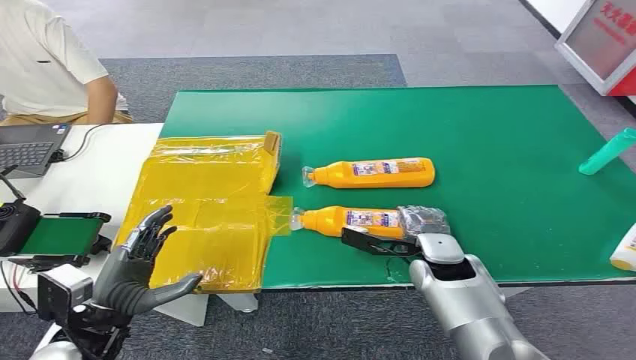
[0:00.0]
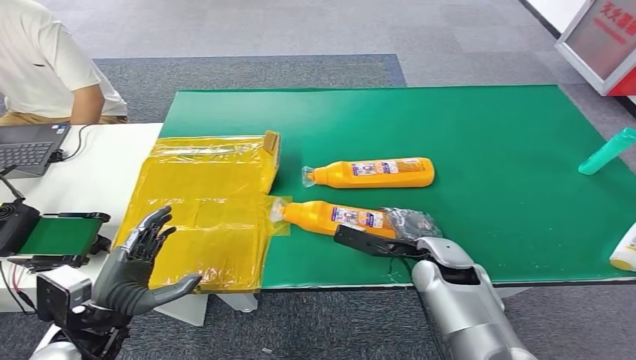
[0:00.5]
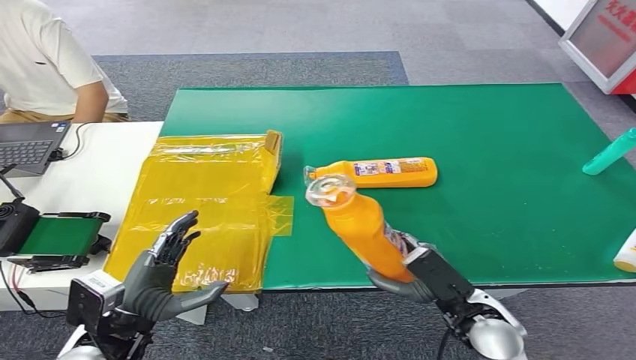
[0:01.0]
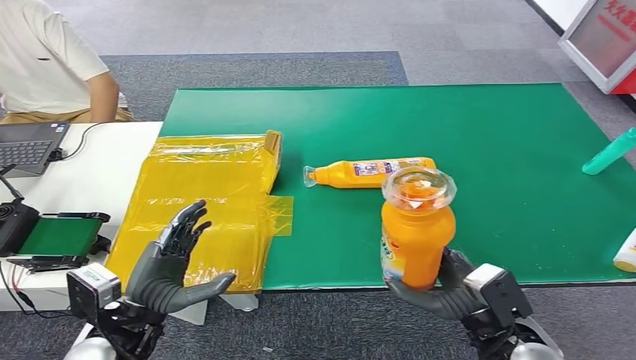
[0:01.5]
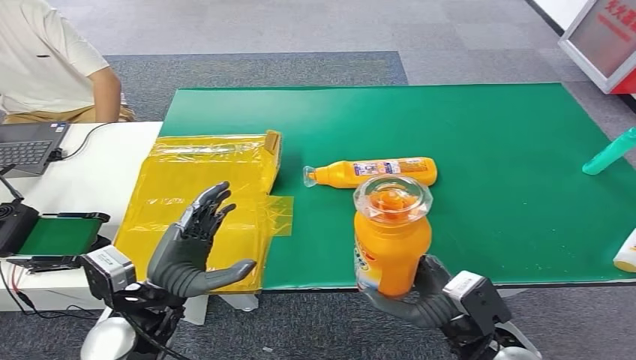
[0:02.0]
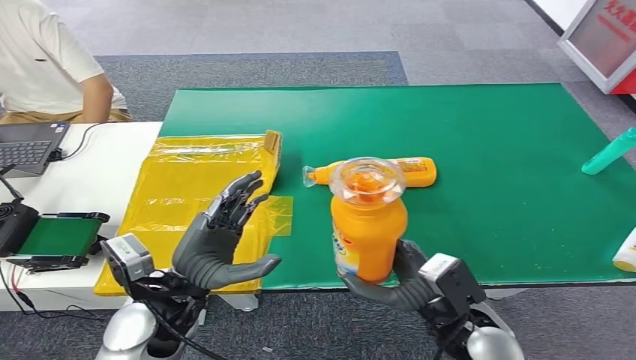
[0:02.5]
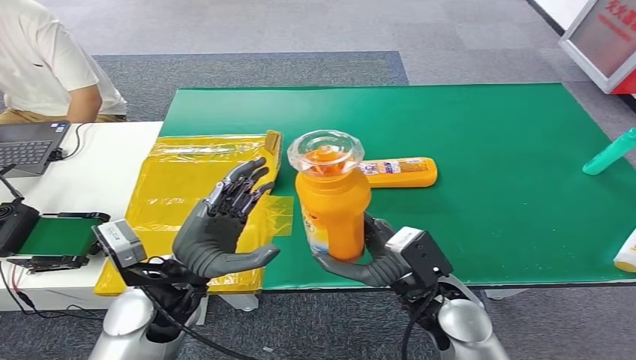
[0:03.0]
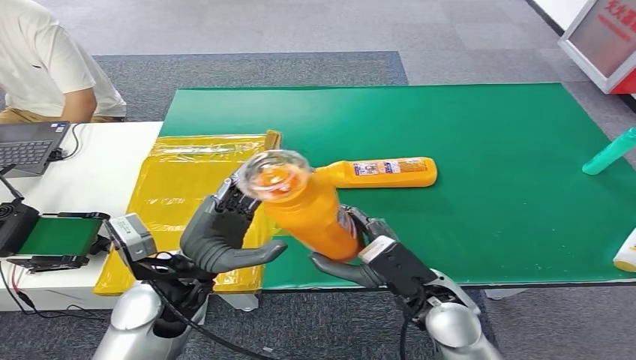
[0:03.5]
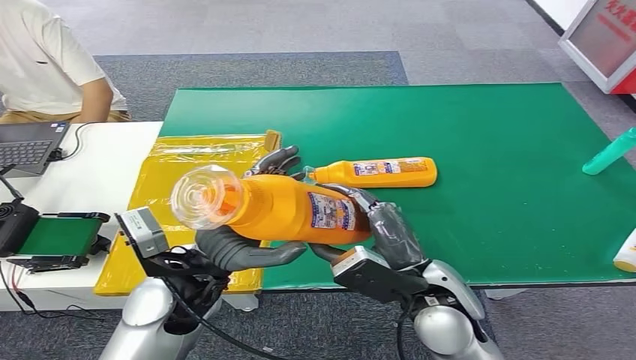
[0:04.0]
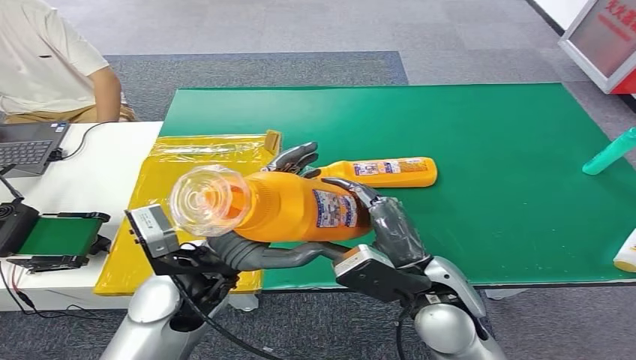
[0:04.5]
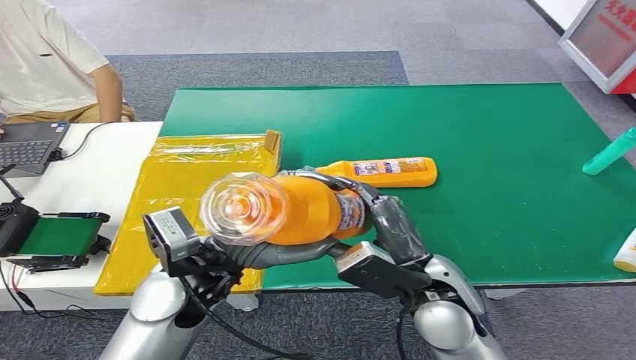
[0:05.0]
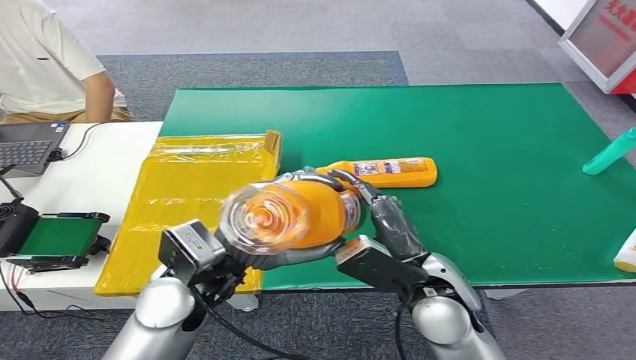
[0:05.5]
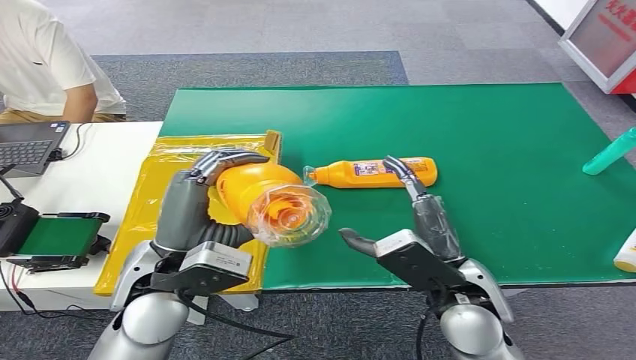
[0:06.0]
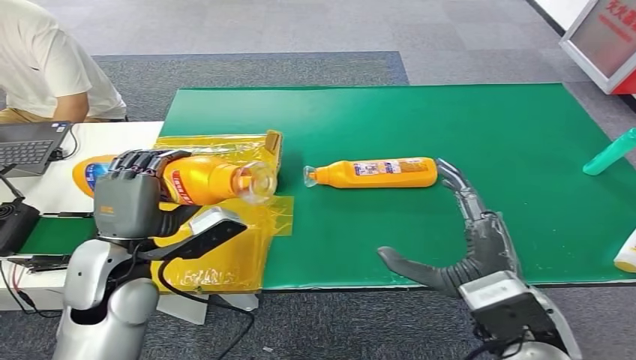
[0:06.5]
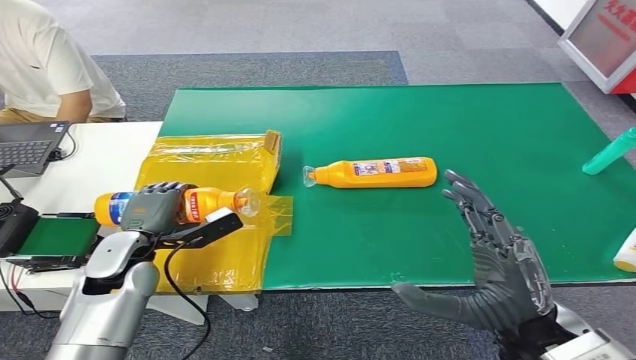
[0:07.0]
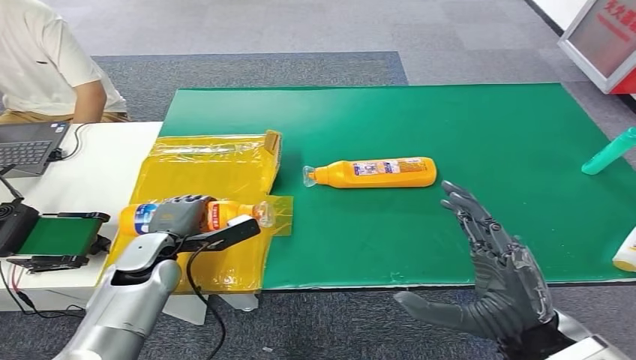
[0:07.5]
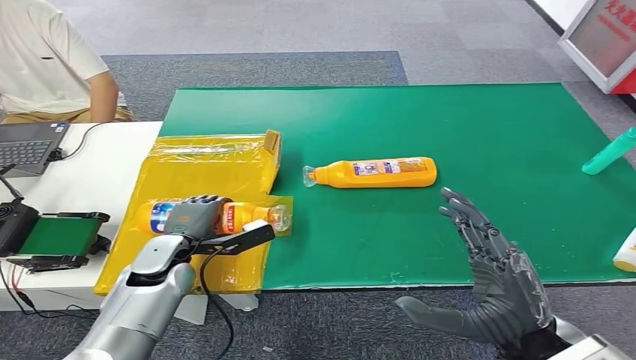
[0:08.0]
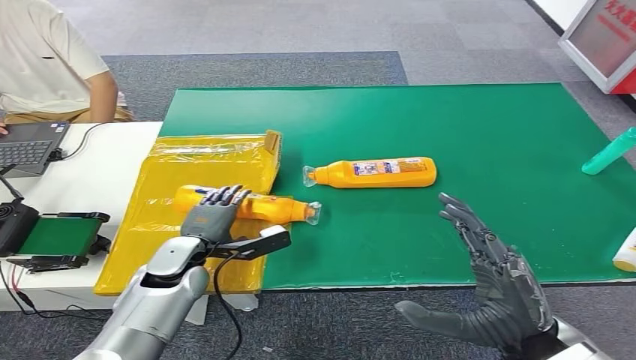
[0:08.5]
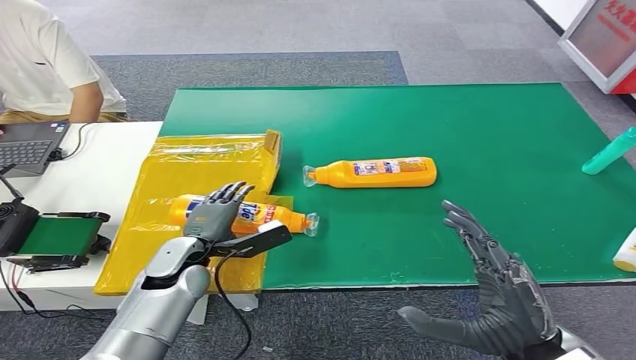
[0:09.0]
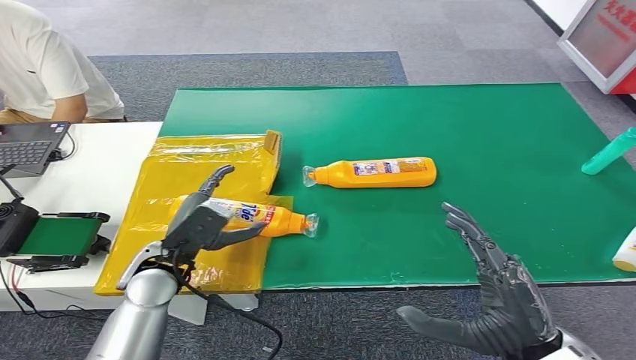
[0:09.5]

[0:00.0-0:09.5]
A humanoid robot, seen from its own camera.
Step, 0:00.0 to 0:01.5: Pick up the bottle from the table.
Step, 0:04.5 to 0:09.5: Turn the bottle to the front side.
0:02.0 to 0:04.0: The left hand moves to the right and upward, about 10 cm. The right hand shifts approximately 10 cm to the left, upward and forward.
0:04.0 to 0:05.5: There are only small adjustments of the hands.
0:07.5 to 0:09.5: The left hand shifts by roughly 5 cm.

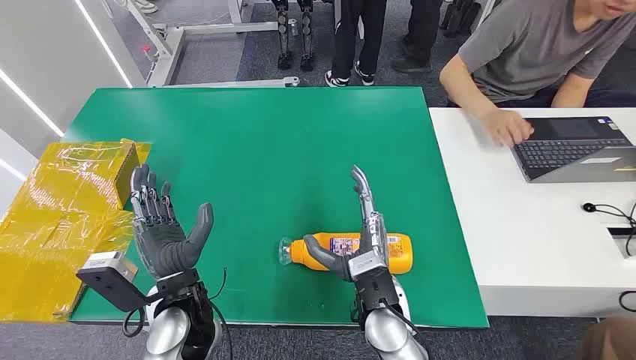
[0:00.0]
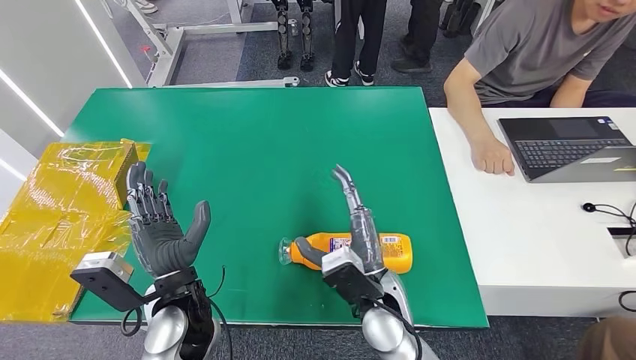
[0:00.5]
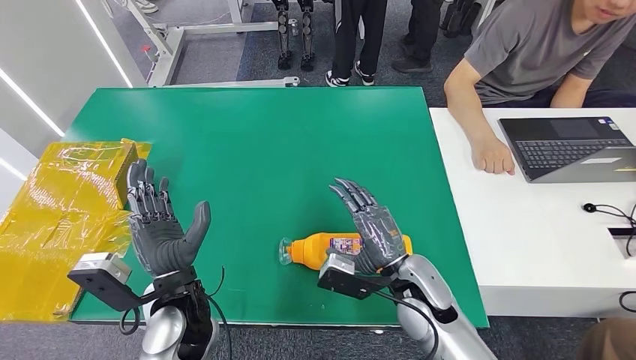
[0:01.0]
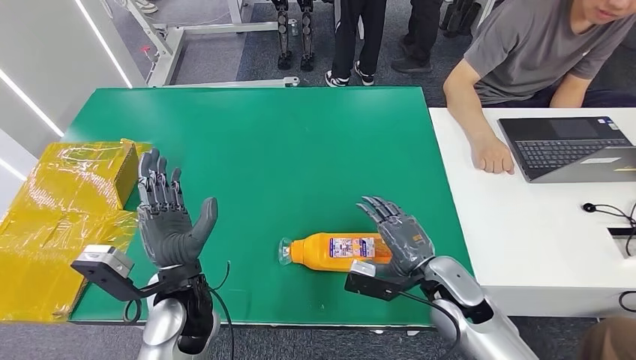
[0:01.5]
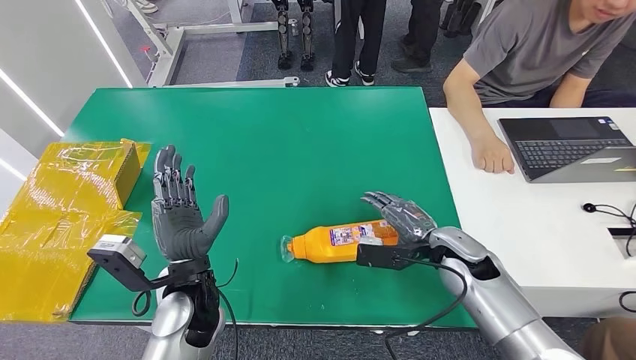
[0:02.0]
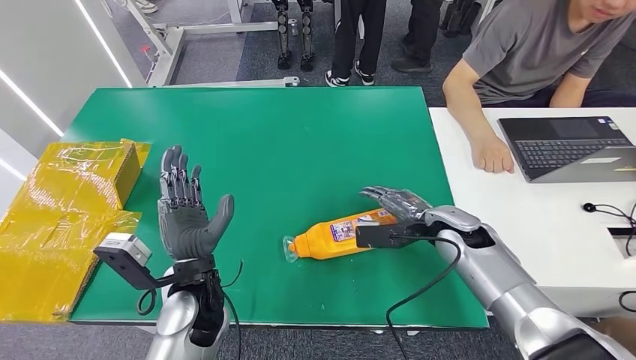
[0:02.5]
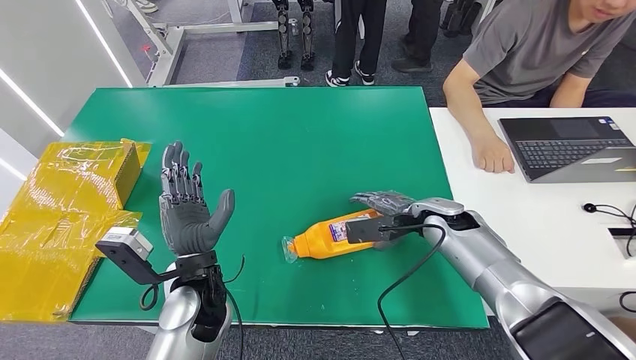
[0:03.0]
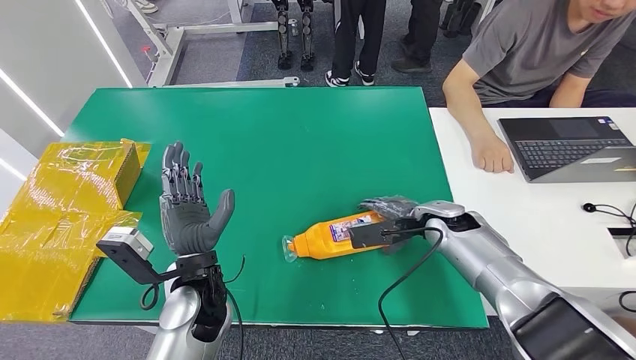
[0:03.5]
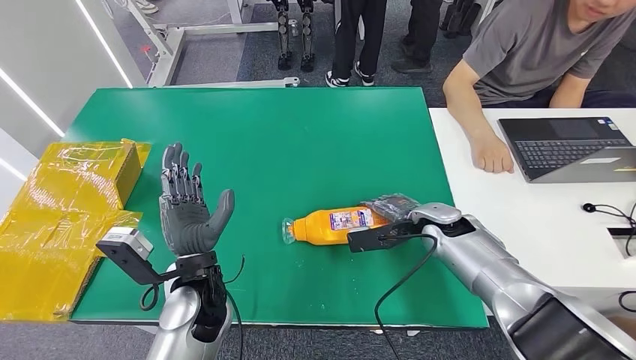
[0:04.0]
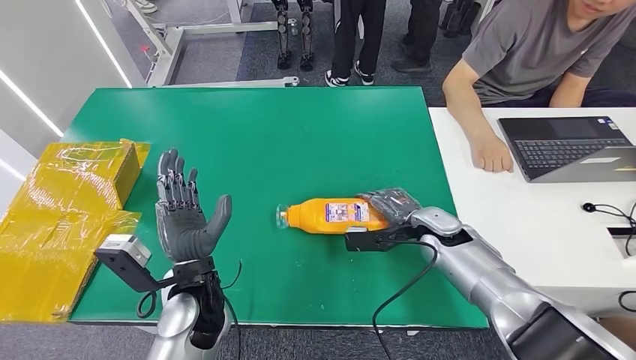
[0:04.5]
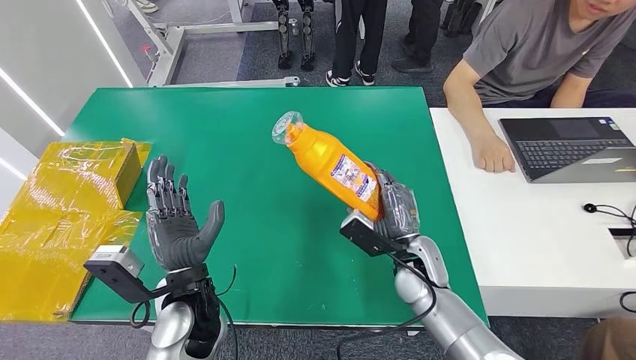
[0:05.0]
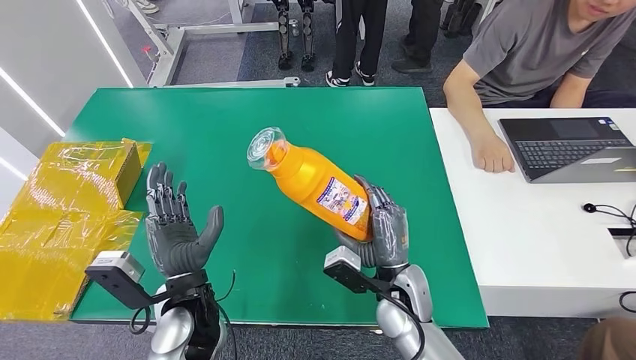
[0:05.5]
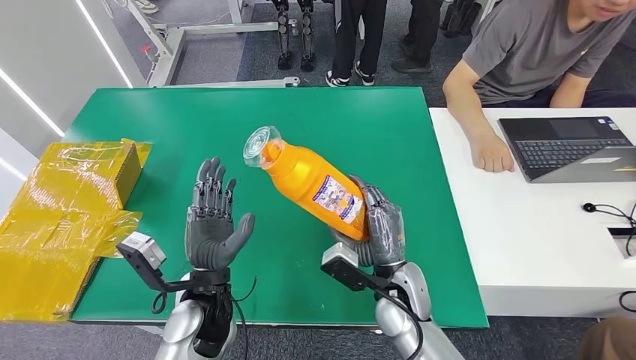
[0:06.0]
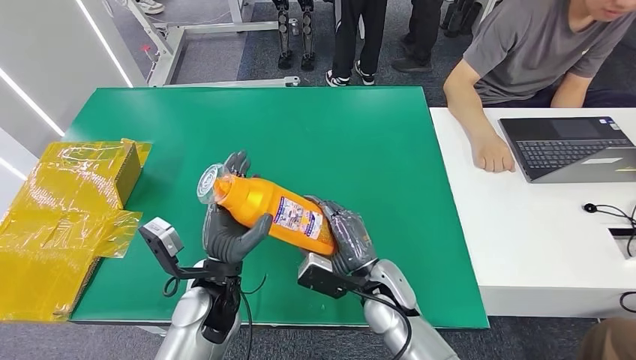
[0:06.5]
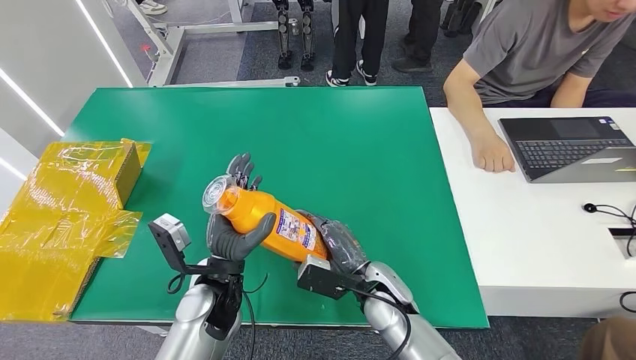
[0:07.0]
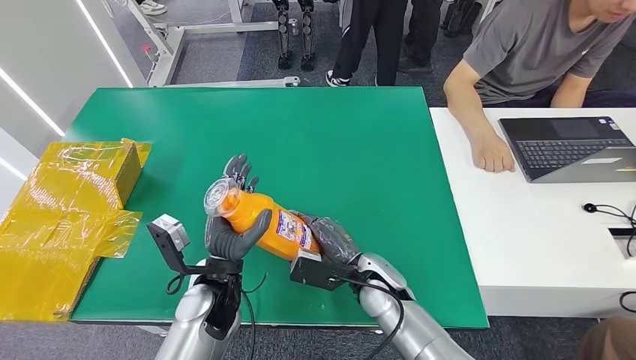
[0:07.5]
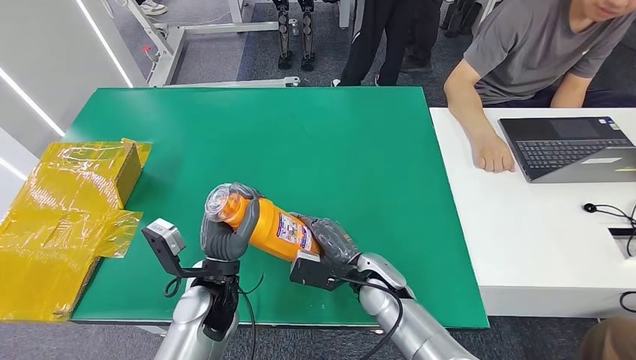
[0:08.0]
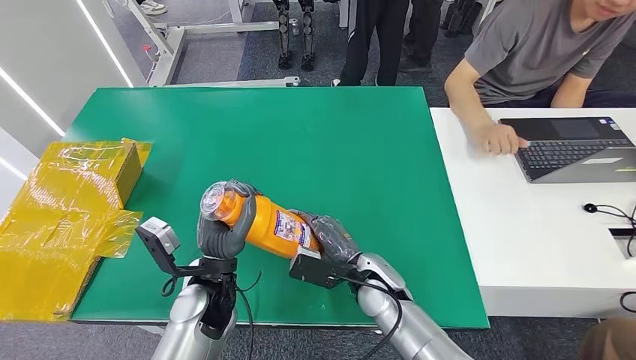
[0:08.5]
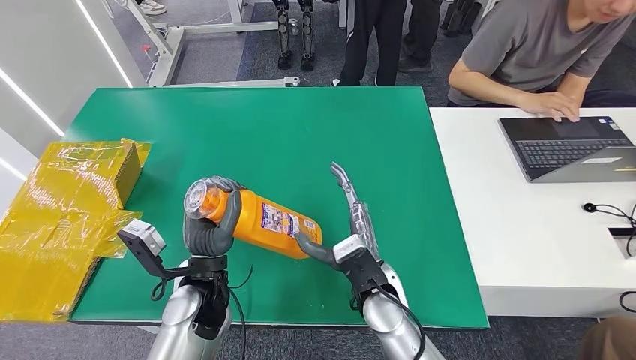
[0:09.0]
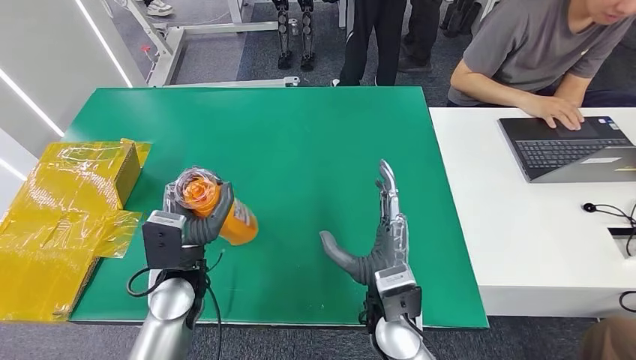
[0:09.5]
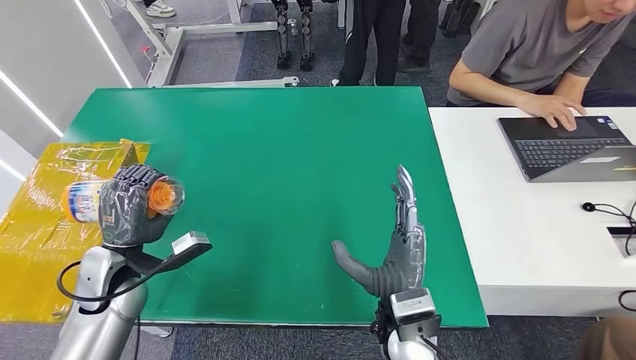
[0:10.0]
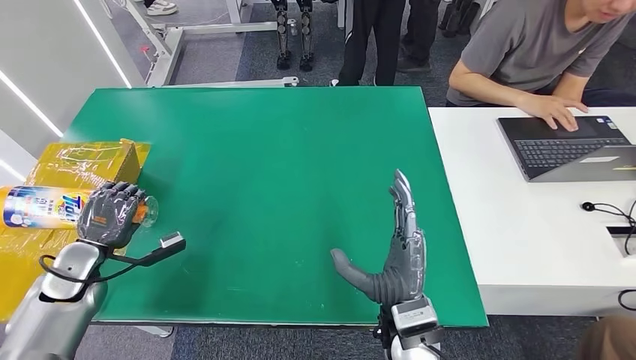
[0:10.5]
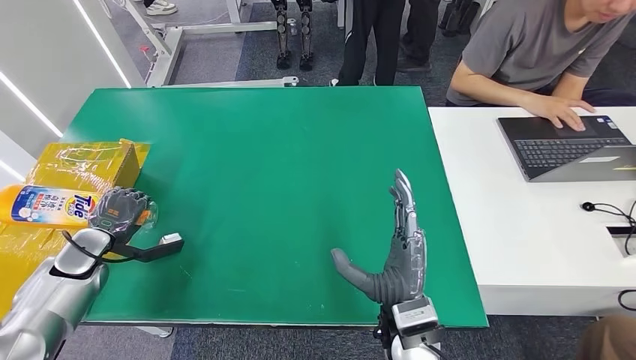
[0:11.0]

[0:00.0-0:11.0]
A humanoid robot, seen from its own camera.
Step, 0:00.0 to 0:05.0: Pick up the bottle from the table.
0:02.0 to 0:03.5: The right hand moves forward, some 5 cm.
0:03.5 to 0:05.5: The right hand moves backward and to the left, some 15 cm.
0:07.5 to 0:09.0: The right hand changes place by approximately 5 cm.
0:09.0 to 0:11.0: The left hand is displaced to the left by some 30 cm, while the right hand shifts approximately 5 cm backward.
